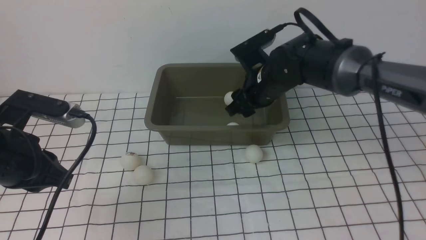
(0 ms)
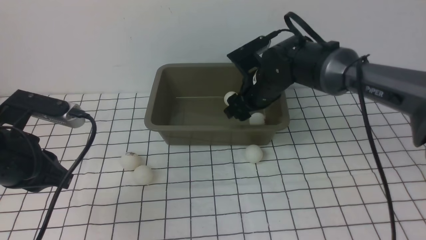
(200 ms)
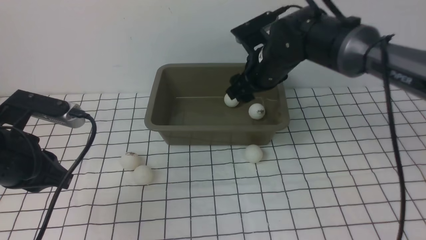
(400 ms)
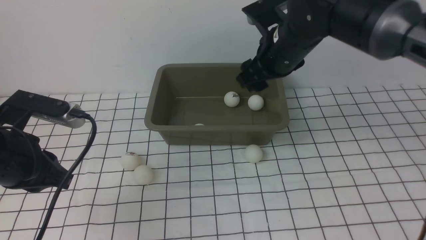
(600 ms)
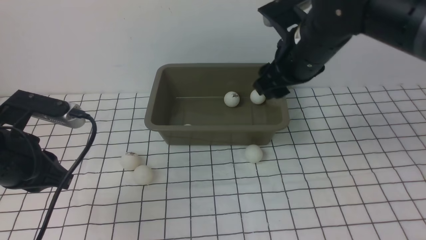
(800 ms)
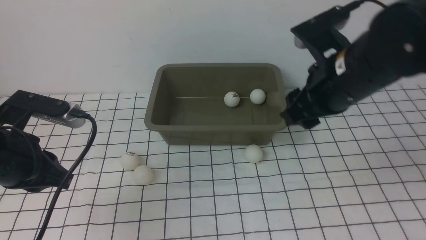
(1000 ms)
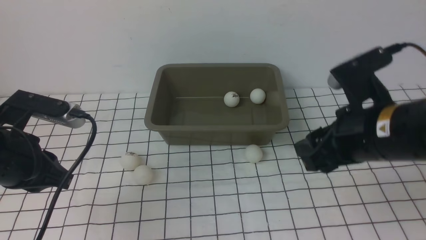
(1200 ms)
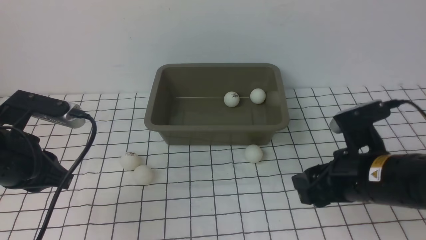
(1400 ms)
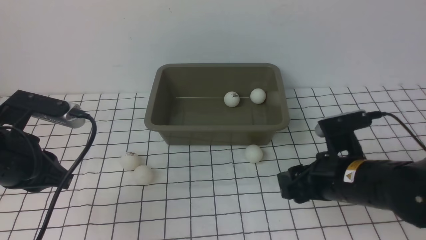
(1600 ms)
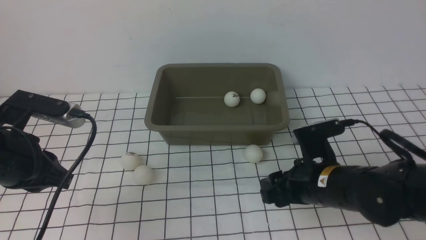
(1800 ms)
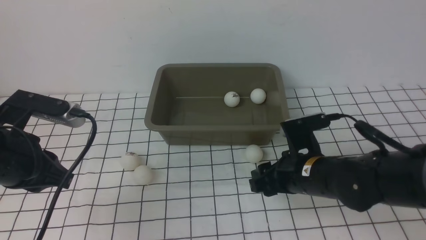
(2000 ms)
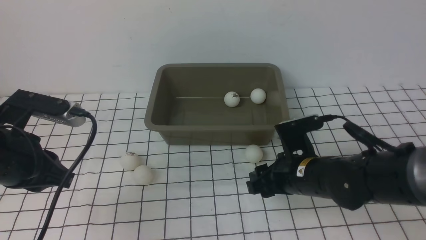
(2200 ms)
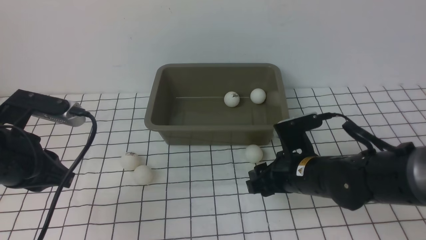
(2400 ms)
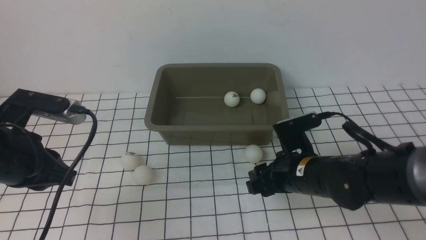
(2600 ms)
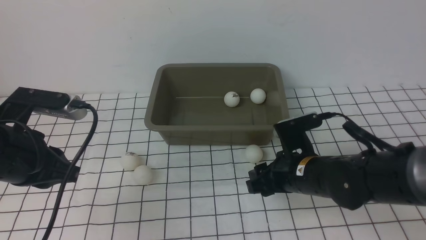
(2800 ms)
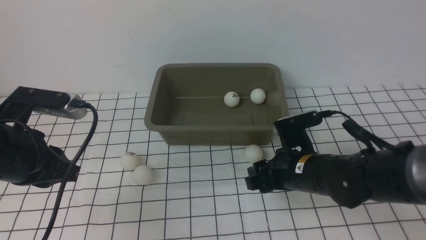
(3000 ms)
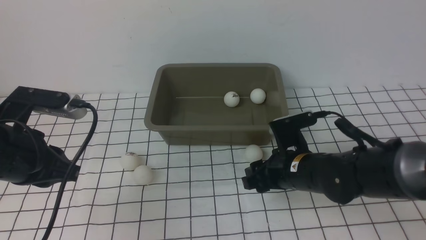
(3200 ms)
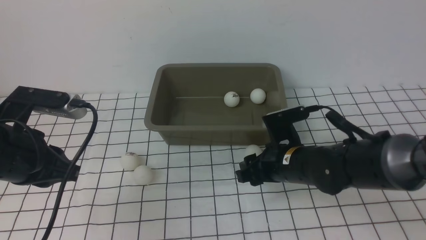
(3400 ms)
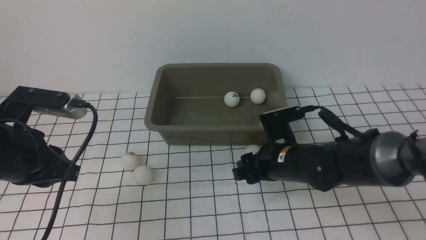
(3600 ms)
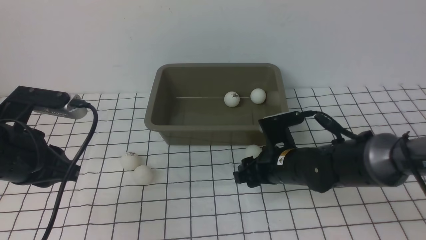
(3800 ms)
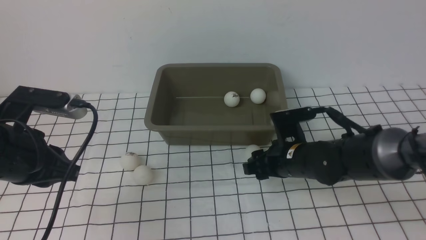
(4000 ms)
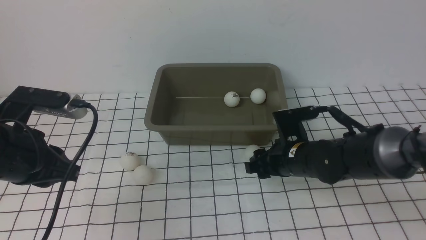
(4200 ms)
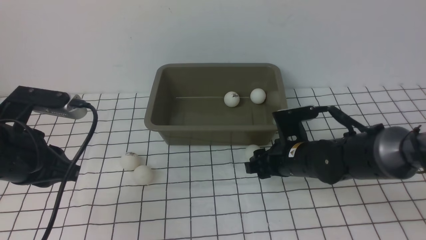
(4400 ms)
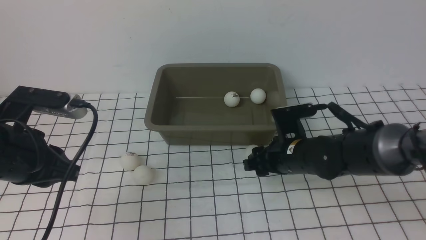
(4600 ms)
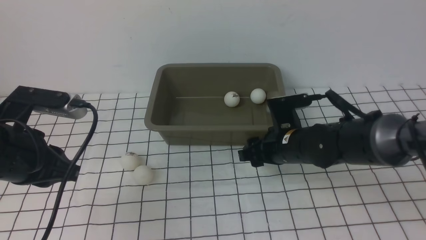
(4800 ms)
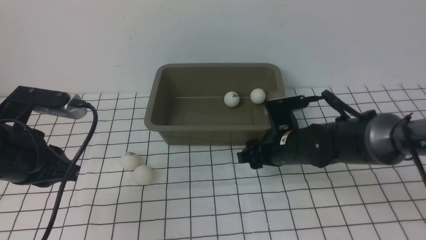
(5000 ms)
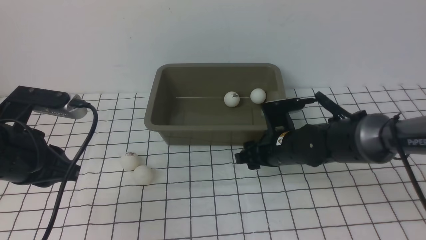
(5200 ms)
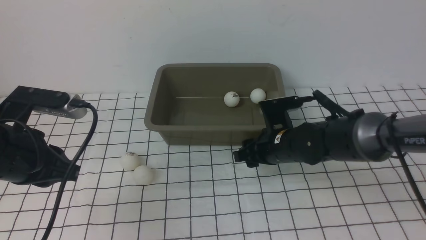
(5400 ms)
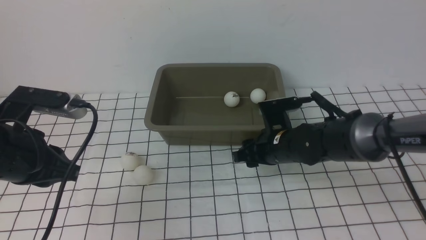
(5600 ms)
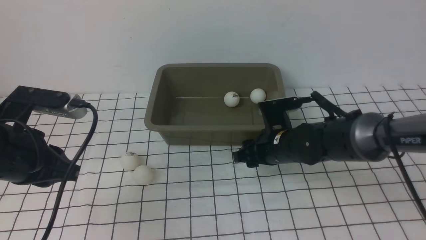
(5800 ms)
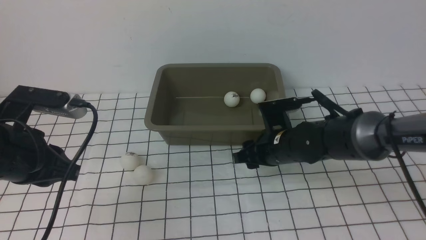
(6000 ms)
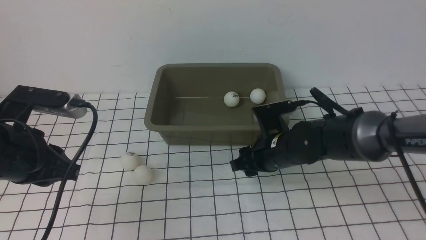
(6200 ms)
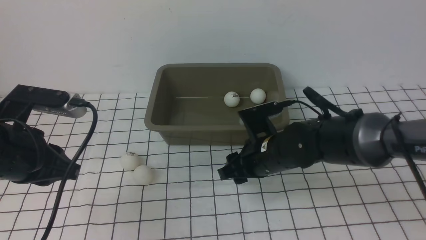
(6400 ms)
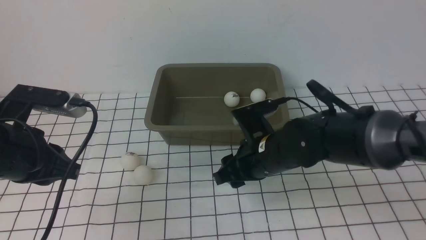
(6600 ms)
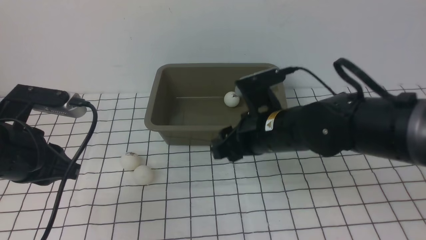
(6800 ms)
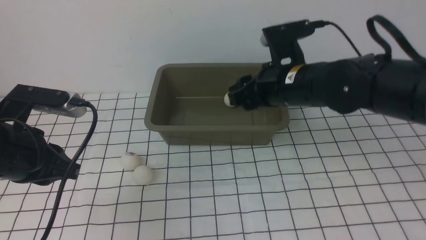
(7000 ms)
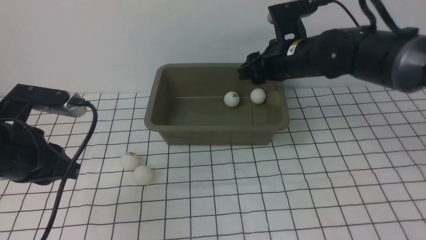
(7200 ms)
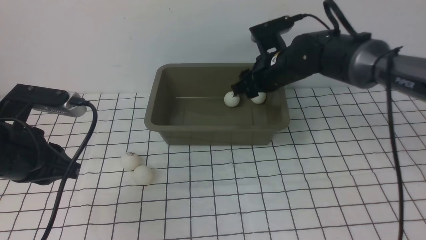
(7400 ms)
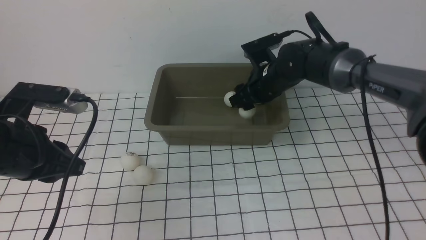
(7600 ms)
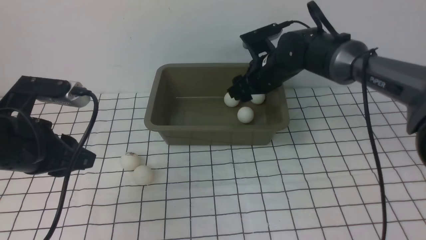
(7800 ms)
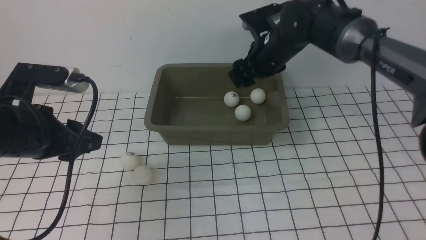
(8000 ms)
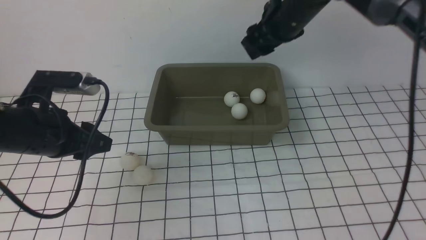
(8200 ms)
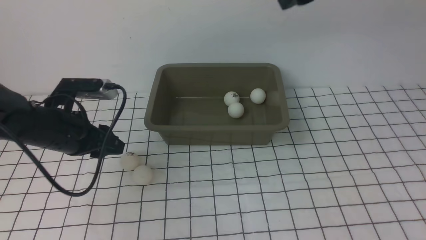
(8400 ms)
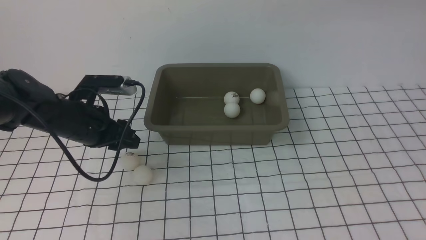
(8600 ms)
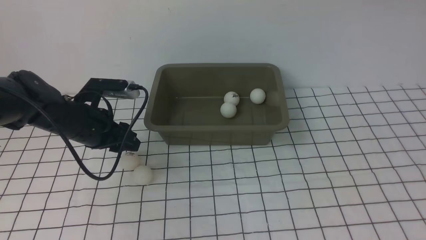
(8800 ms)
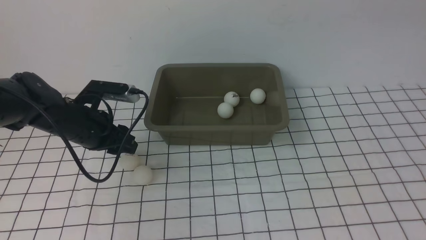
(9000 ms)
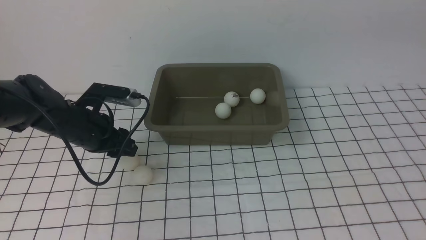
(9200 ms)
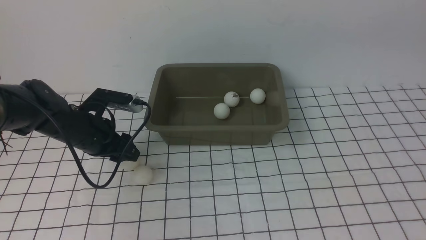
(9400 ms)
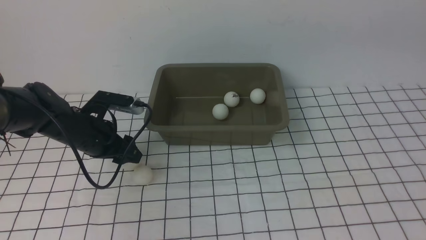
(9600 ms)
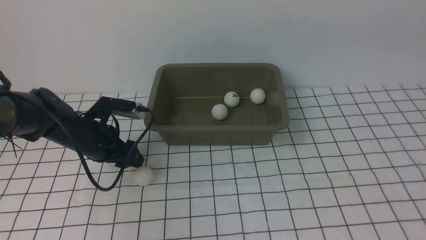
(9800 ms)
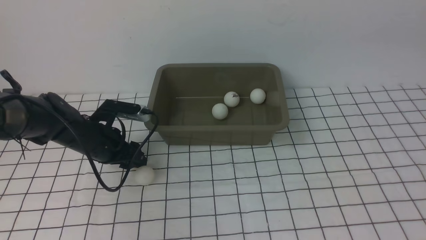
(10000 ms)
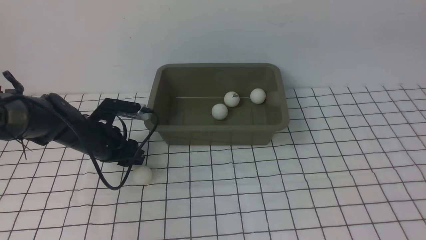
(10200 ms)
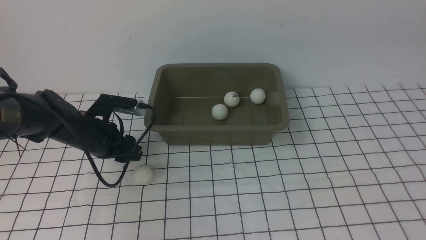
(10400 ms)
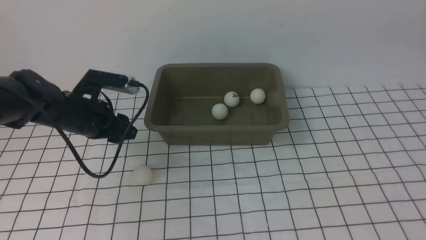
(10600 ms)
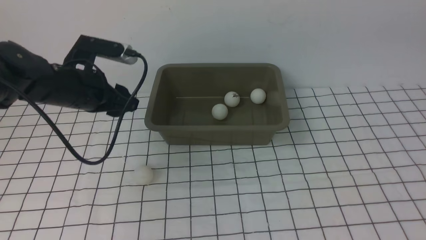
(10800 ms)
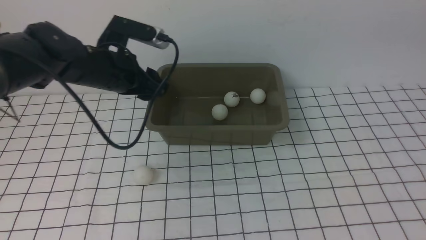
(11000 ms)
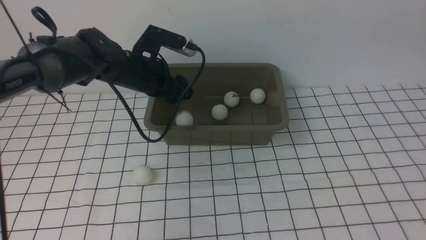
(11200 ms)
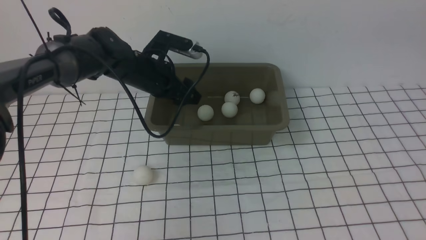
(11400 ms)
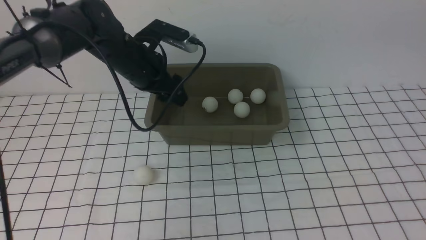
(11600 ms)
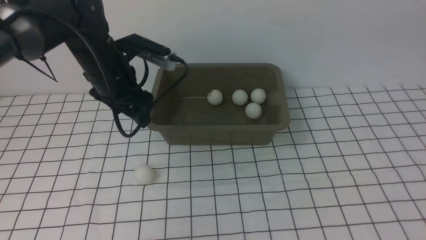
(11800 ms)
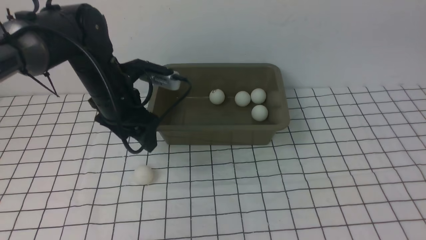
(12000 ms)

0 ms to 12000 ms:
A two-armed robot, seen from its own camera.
Step, 400 ms to 6800 ms: use the right arm to clamp the table tennis ball closest to it.
Step, 7000 ms to 7800 ms: use the right arm to put the table tennis ball into the box.
Step, 8000 ms to 10400 ms: use the left arm to clamp the table tennis ball closest to it.
Step, 10800 ms to 11400 ms: use the left arm to put the table tennis ball into the box.
0 ms to 1600 ms: The right gripper shifts about 20 cm backward and to the right.
1600 ms to 3000 ms: The right gripper shifts by about 5 cm.
3000 ms to 4400 ms: There are only small adjustments of the grippers.
4400 ms to 6000 ms: The grippers make only small movements.
6000 ms to 7600 ms: The right gripper shifts about 15 cm forward and upward.
7600 ms to 9000 ms: The right gripper goes some 40 cm upward, backward and to the right; the left gripper is displaced forward and downward by approximately 15 cm, and opens.
9000 ms to 10400 ms: The left gripper heads upward, covering roughly 5 cm.
10400 ms to 12000 ms: The left gripper is displaced downward by some 5 cm, and opens up.

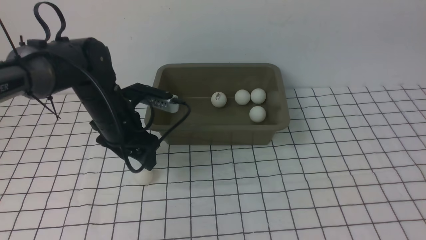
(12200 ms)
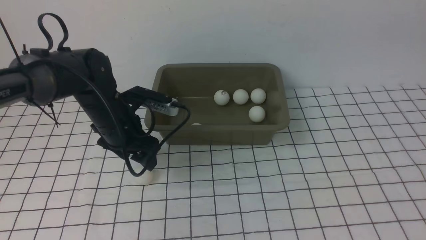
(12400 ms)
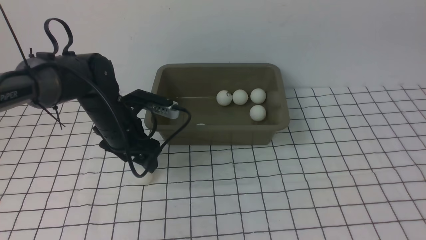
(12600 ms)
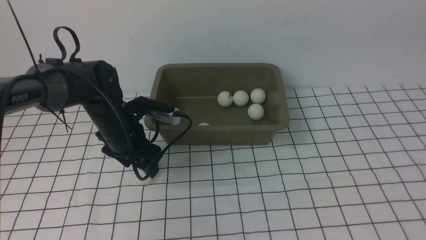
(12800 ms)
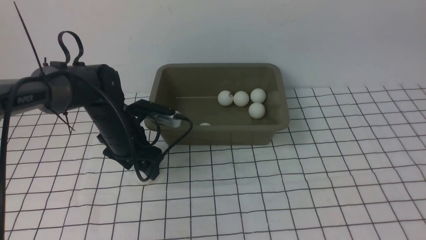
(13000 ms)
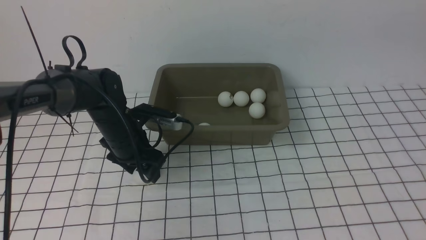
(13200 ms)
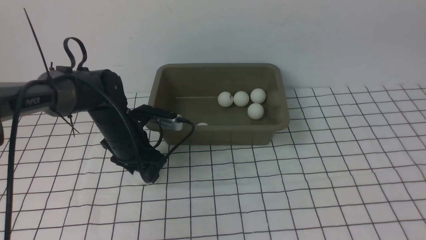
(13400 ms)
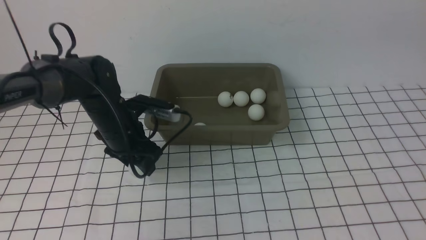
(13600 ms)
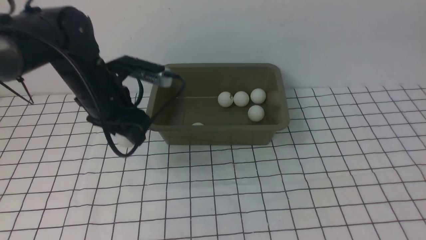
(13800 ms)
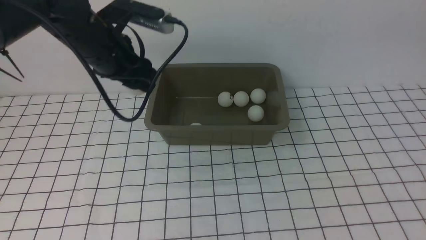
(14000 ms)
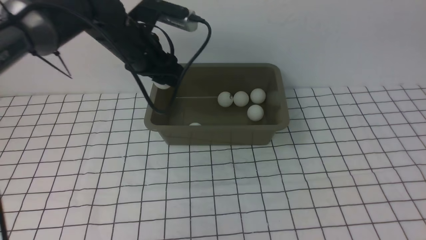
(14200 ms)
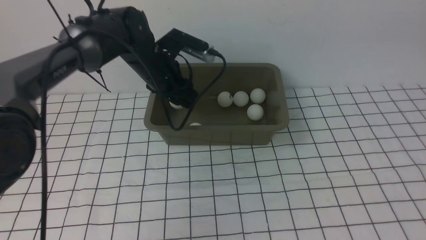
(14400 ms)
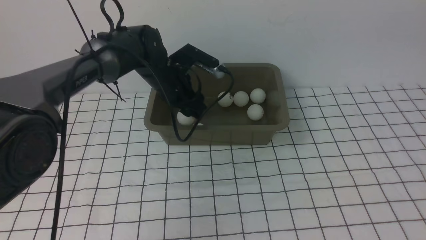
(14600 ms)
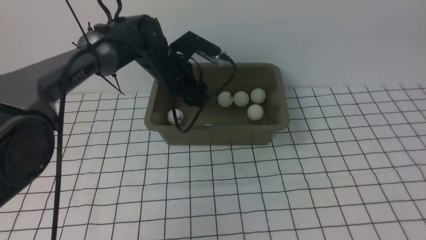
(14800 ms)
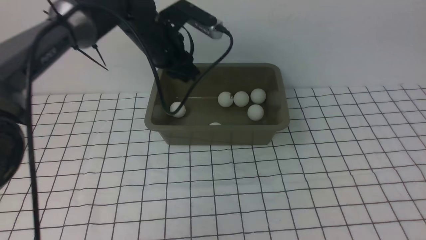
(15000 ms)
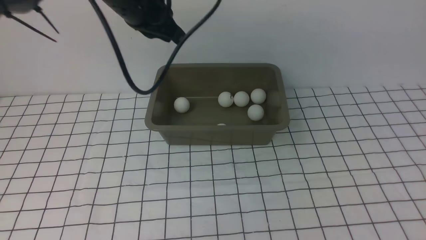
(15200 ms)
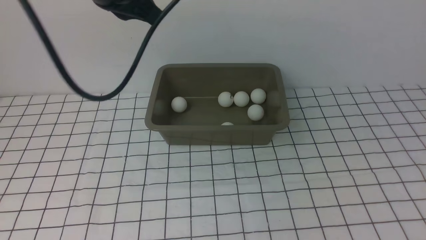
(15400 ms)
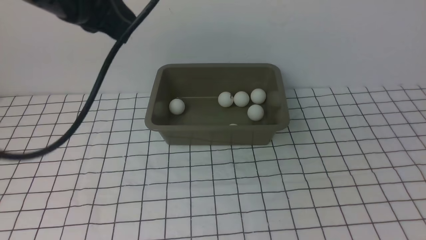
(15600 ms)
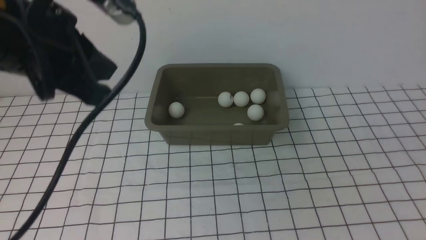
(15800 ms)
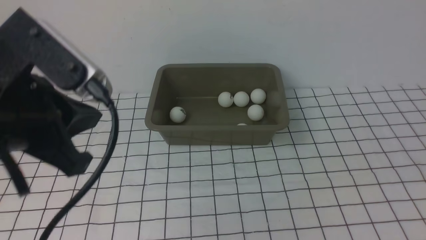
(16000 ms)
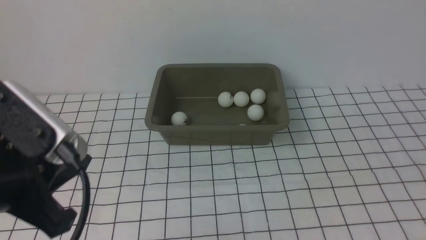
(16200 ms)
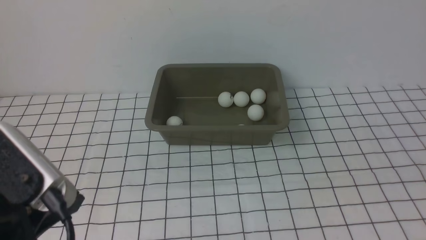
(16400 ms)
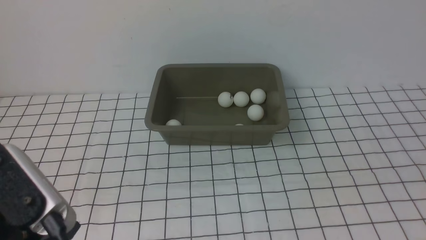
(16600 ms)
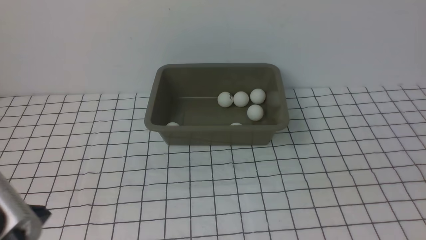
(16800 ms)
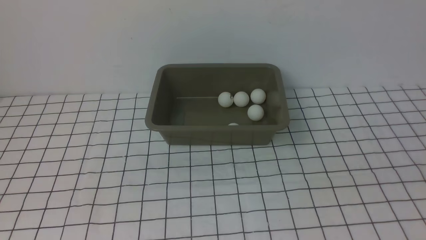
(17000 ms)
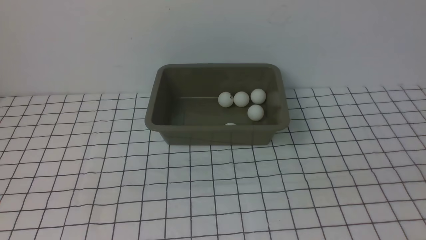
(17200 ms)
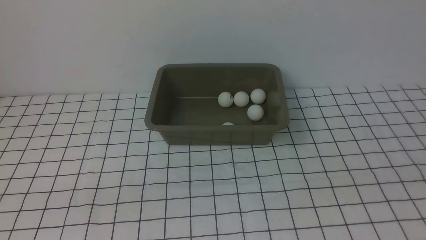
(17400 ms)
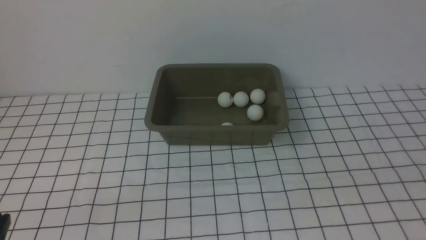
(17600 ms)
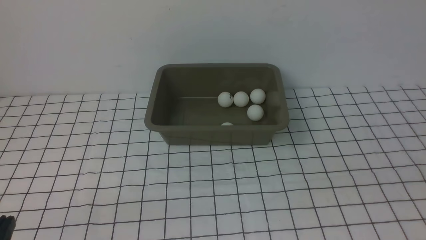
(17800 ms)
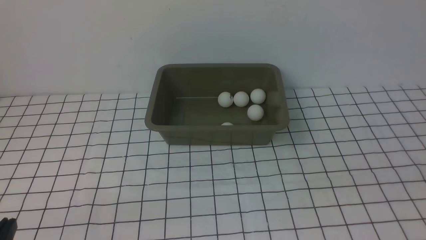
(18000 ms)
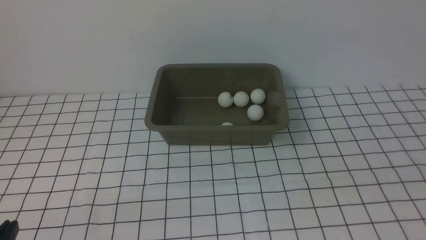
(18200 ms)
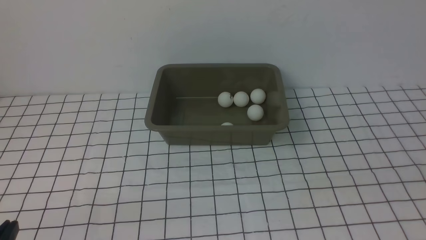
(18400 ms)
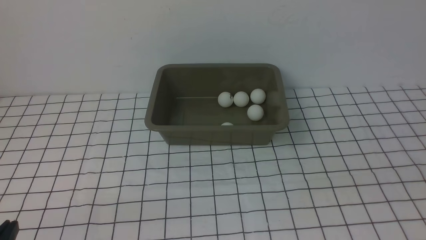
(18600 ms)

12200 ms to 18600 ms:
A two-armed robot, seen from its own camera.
Step, 12200 ms to 13600 ms: use the left arm to clamp the table tennis ball closest to it.
Step, 13800 ms to 14800 ms: use the left arm to put the table tennis ball into the box.
12200 ms to 13800 ms: The left gripper goes some 15 cm upward.
13800 ms to 15400 ms: The right gripper moves backward, roughly 10 cm; the left gripper is displaced upward and backward by roughly 15 cm, and closes its fingers.
15400 ms to 17000 ms: The right gripper is displaced downward and backward by approximately 15 cm, while the left gripper shifts roughly 30 cm backward.
